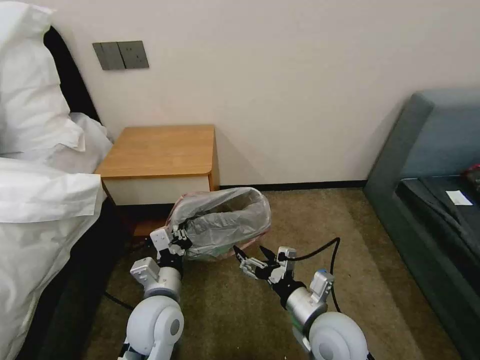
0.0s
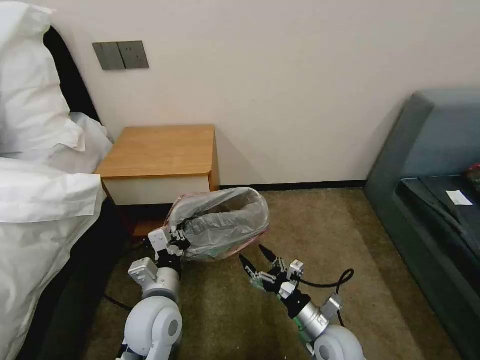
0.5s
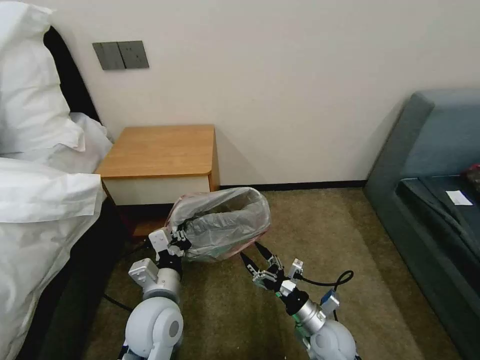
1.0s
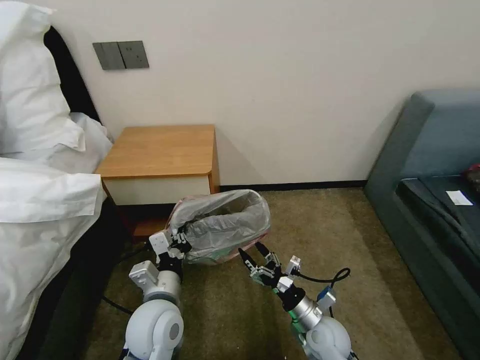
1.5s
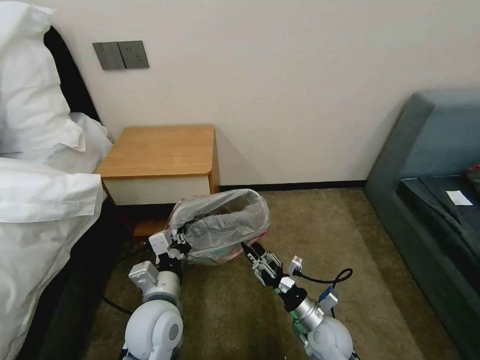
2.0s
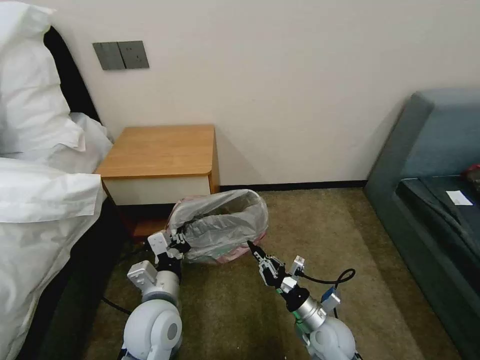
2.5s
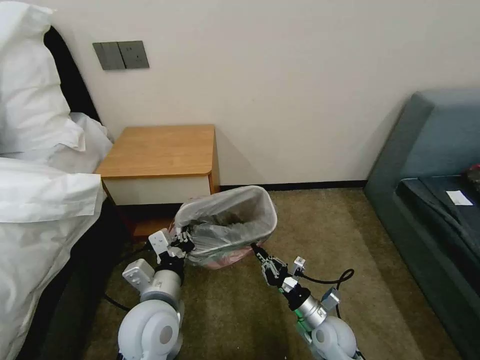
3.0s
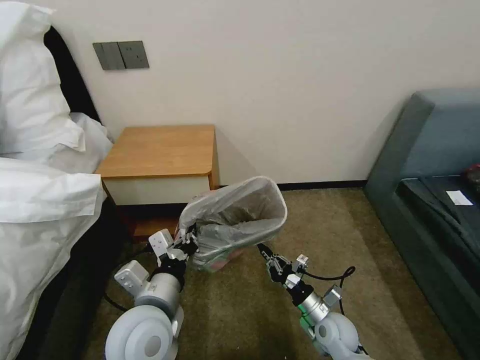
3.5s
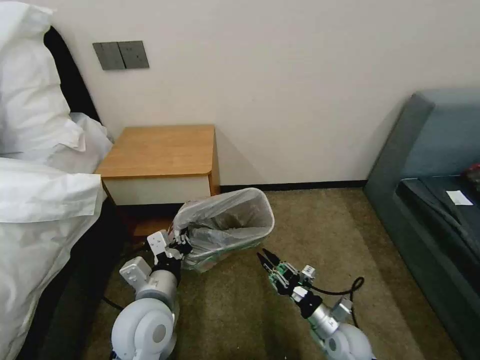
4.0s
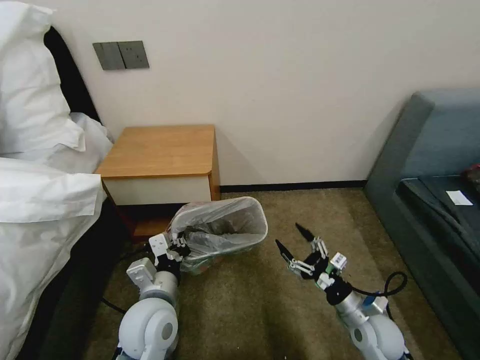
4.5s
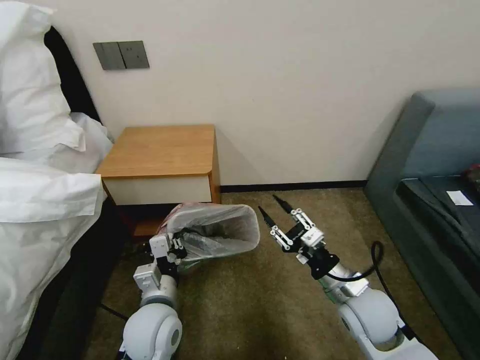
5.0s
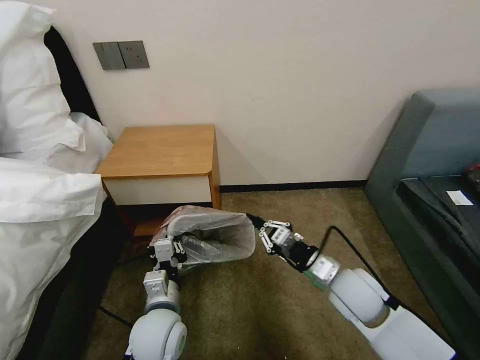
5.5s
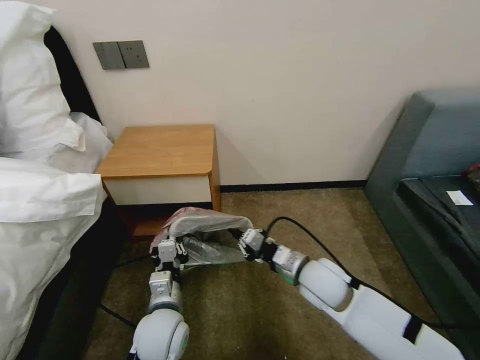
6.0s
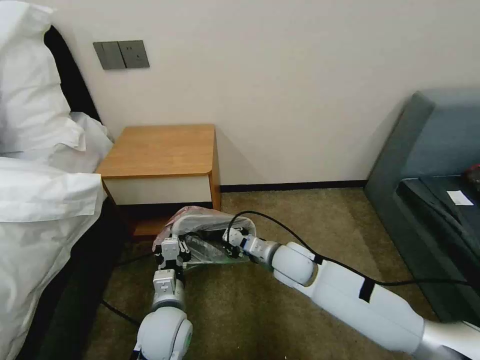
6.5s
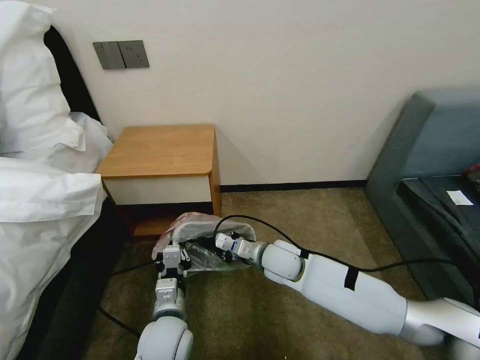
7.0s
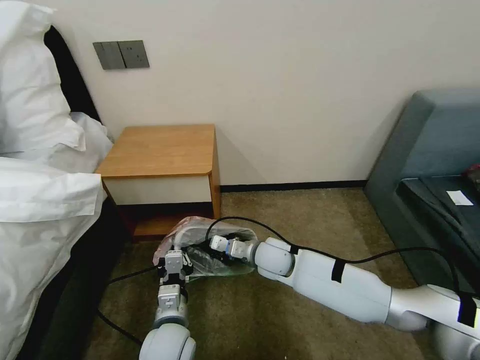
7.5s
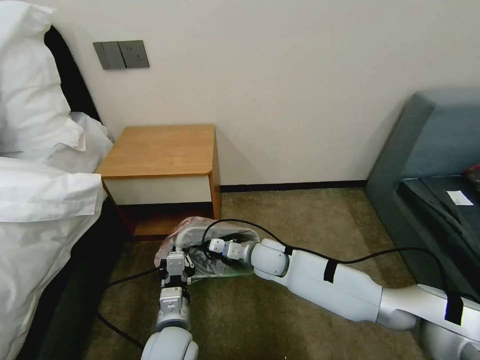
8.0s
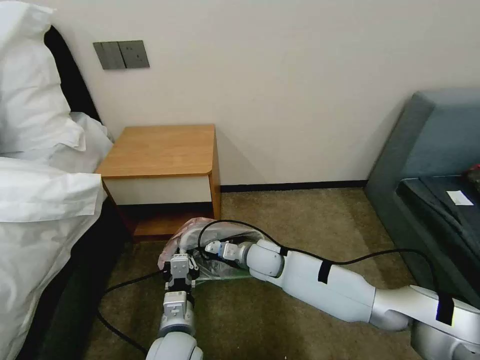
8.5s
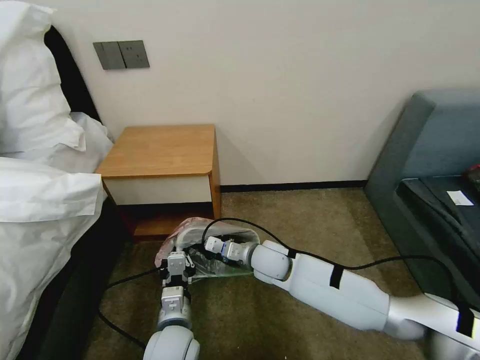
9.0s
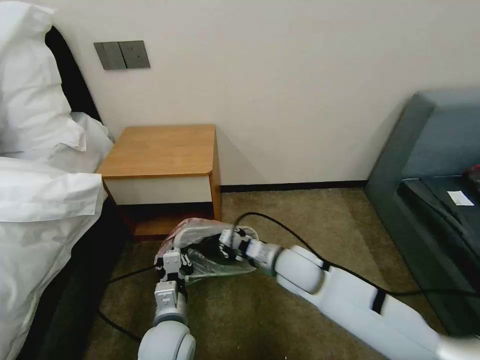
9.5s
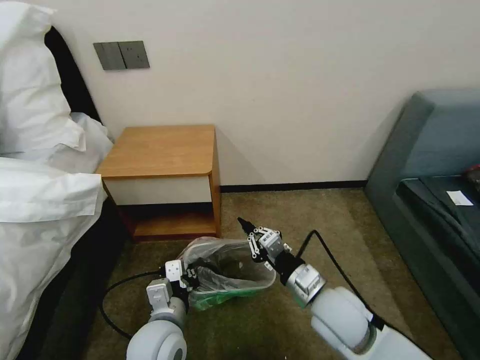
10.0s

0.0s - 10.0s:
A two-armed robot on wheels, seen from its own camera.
Task of the whole recording: Pick up the garbage bag from the table and place it over the trash can.
0.0s - 2.0s: The right gripper moves downward, approximately 15 cm, and closes.
2.0s - 4.0s: The right gripper moves about 5 cm.
4.0s - 6.0s: The right gripper moves upward, forward and to the left, some 20 cm, and opens, then closes once more, while the left gripper travels downward by approximately 10 cm.
6.0s - 8.0s: The right gripper goes about 15 cm to the left, forward and downward.
8.0s - 10.0s: The right gripper goes approximately 20 cm backward, to the right and upward.

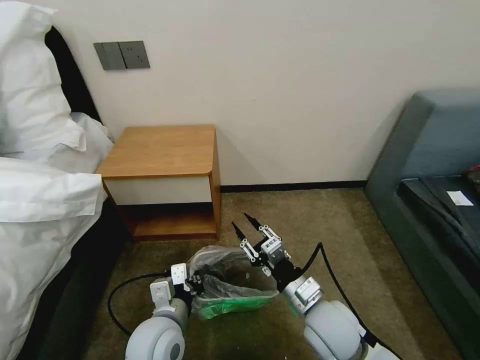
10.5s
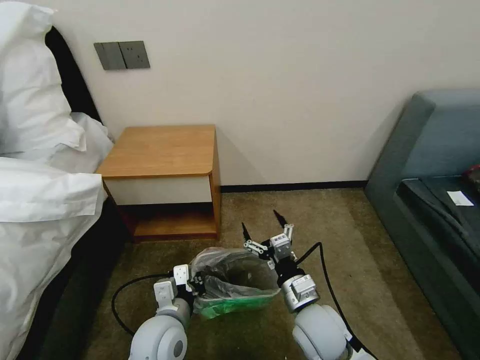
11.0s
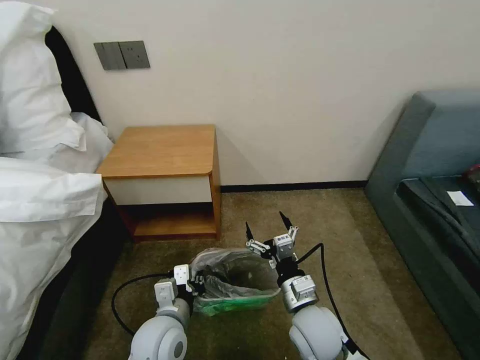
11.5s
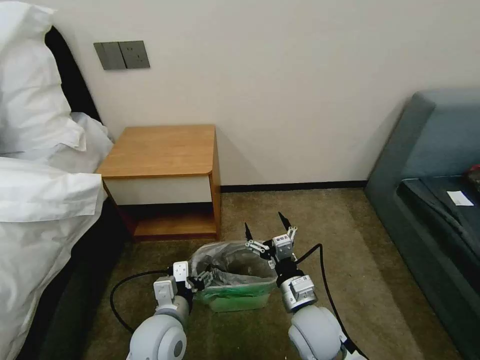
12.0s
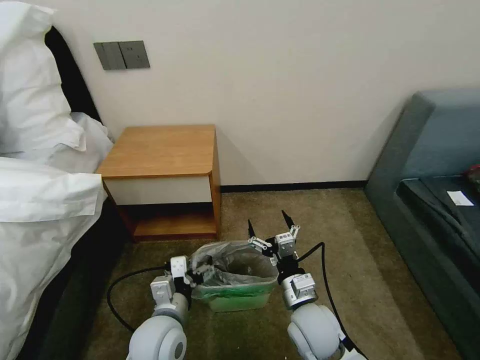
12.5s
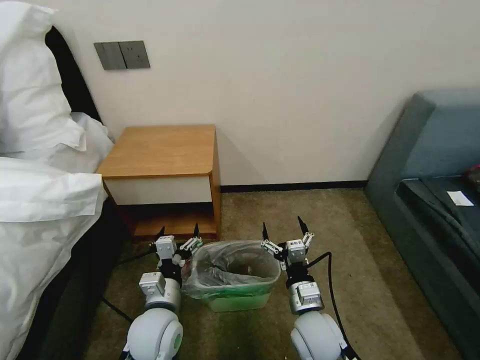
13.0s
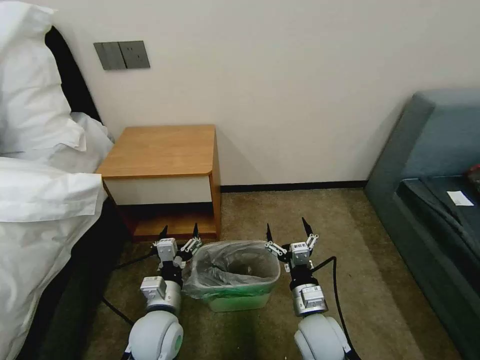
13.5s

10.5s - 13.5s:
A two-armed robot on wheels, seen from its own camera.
Task of the whole recording: Pick up the garbage bag from the table and place it over the trash can.
10.5s - 12.0s: The left gripper opens up. Meanwhile the right gripper opens its fingers.

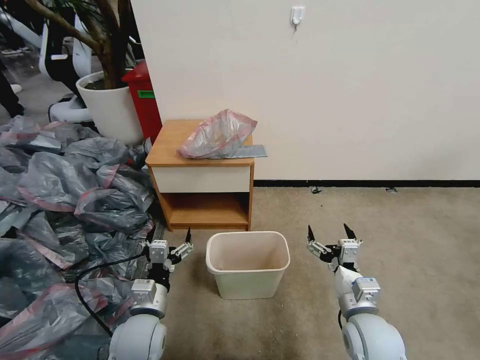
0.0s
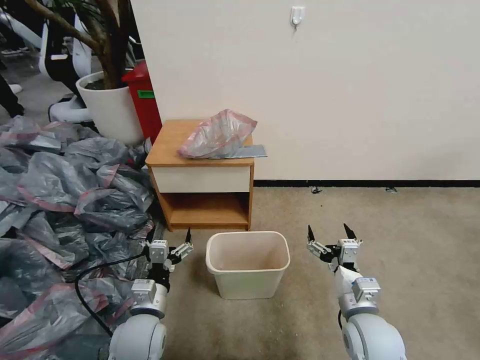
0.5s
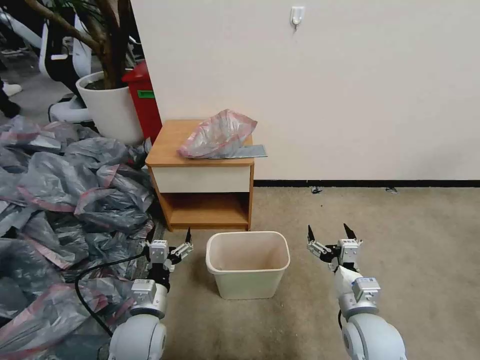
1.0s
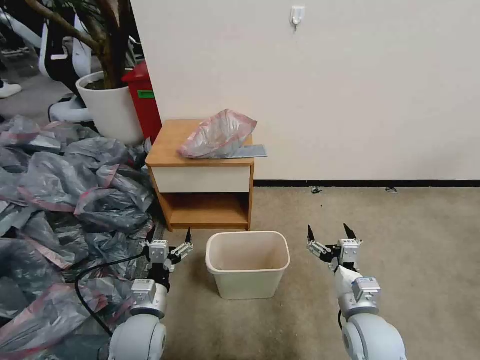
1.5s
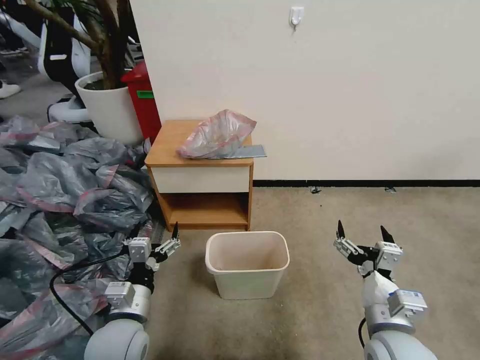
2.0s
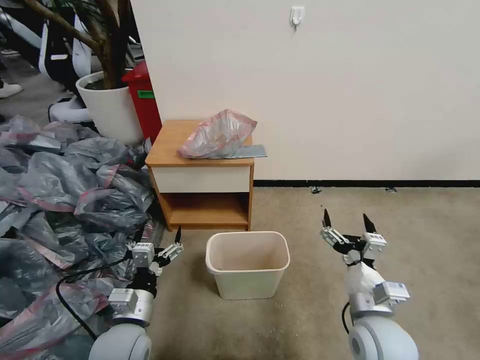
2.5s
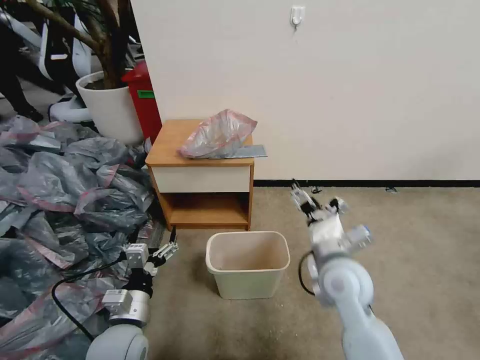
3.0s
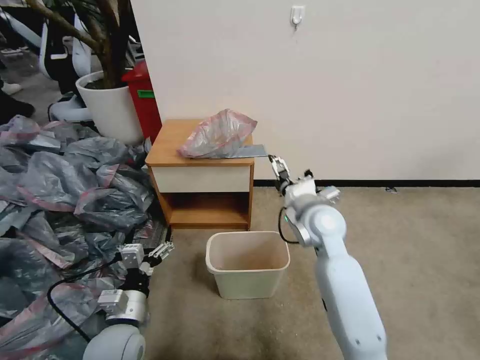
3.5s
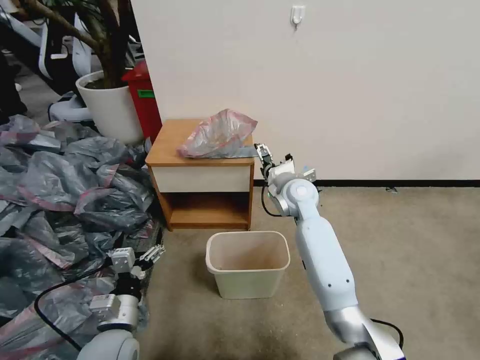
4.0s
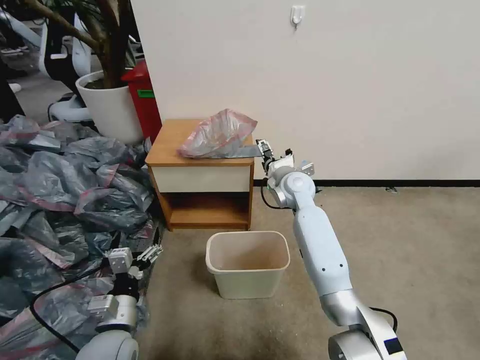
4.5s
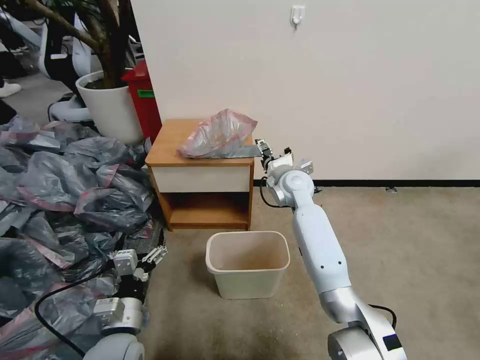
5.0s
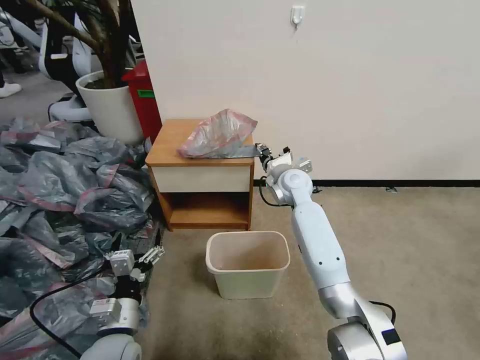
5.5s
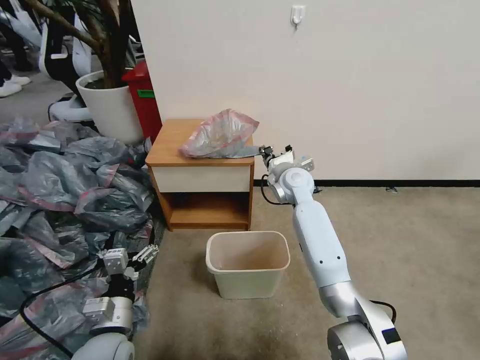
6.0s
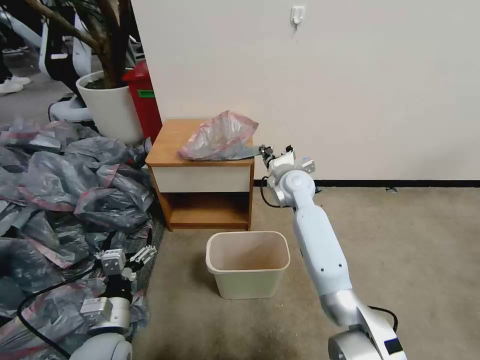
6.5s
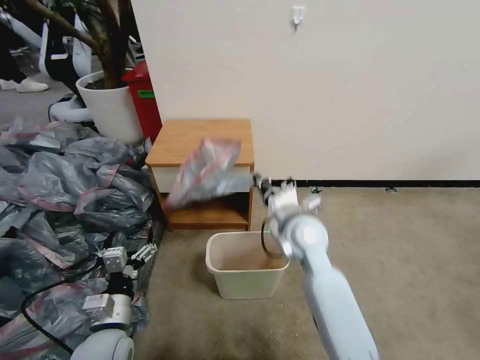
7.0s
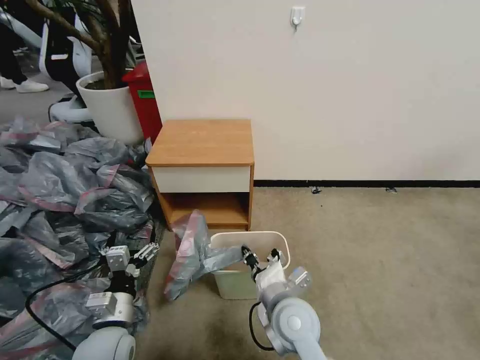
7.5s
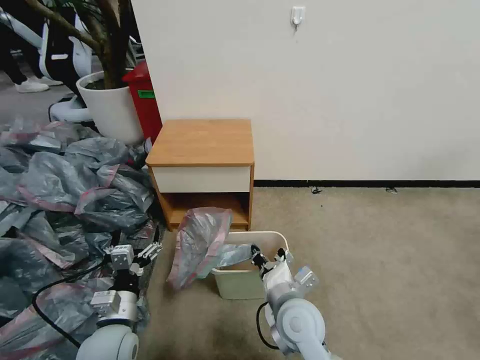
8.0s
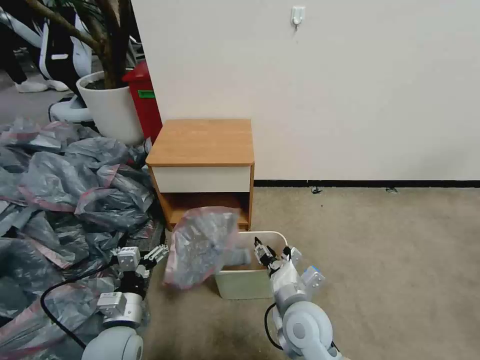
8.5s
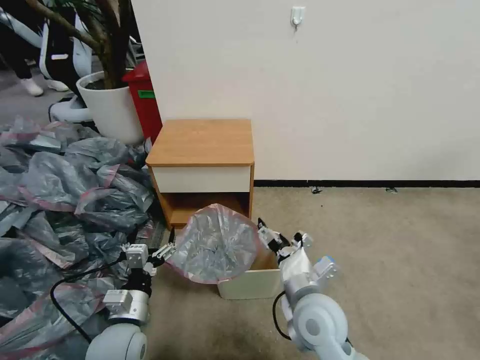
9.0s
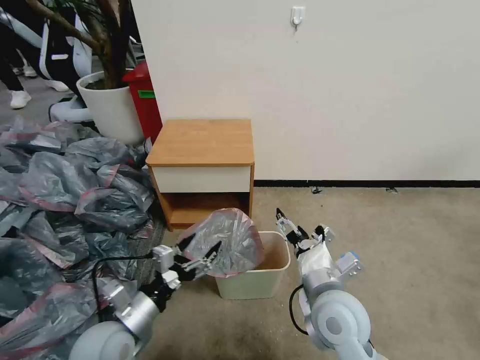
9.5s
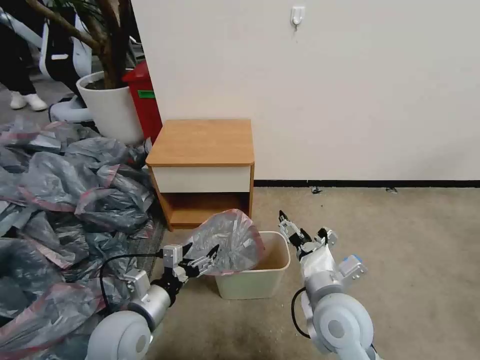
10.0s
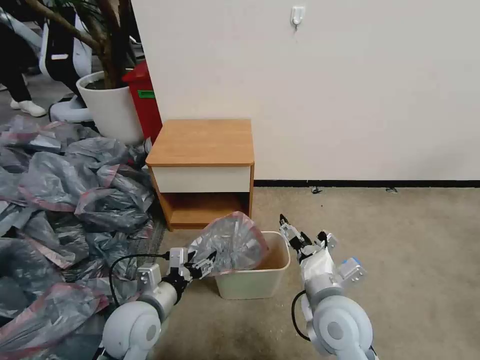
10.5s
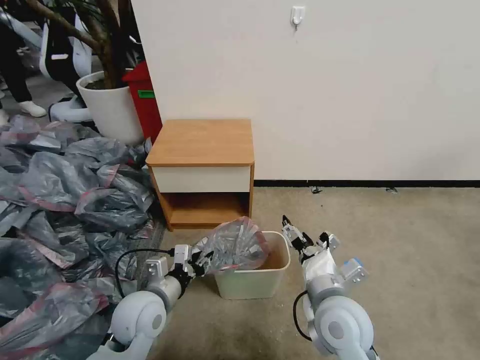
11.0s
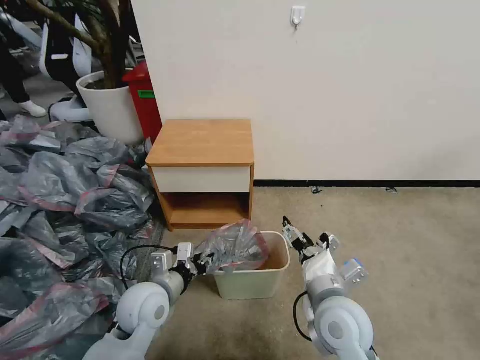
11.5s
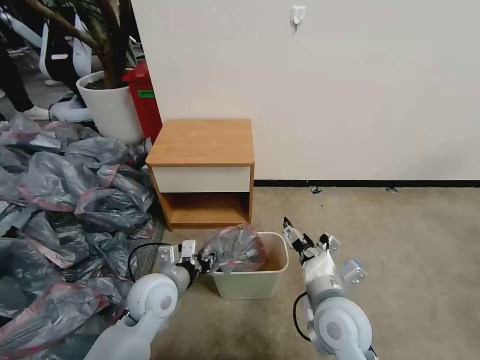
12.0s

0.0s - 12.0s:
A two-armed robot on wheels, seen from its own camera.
Task of the whole recording: Pick up the garbage bag from the table and place it over the trash can.
2.0s - 4.0s: The right gripper goes about 30 cm forward.
4.0s - 6.0s: The right gripper closes its fingers.
6.0s - 8.0s: The right gripper shifts roughly 30 cm backward.
8.0s - 10.0s: The right gripper goes about 10 cm upward and to the right, and opens; the left gripper ends up roughly 5 cm from where it was.
10.0s - 12.0s: The left gripper shifts roughly 5 cm forward, and closes.
